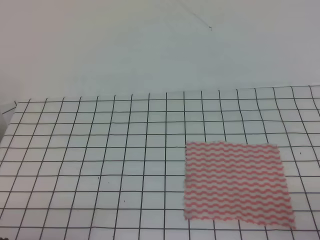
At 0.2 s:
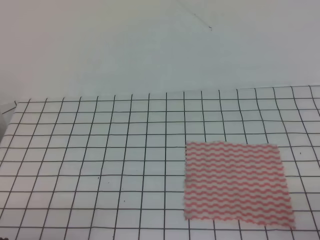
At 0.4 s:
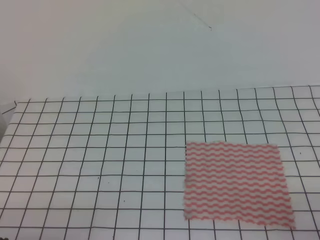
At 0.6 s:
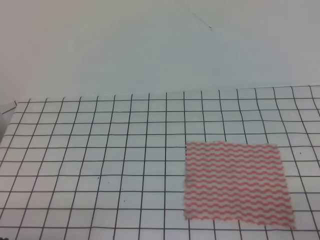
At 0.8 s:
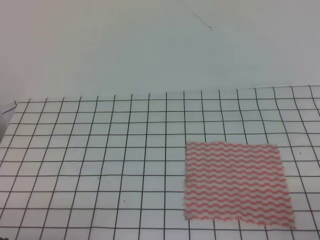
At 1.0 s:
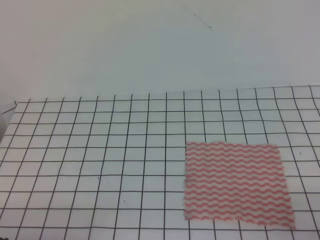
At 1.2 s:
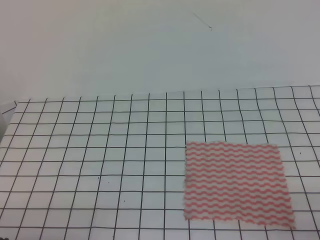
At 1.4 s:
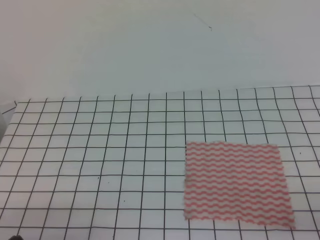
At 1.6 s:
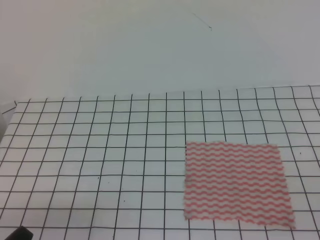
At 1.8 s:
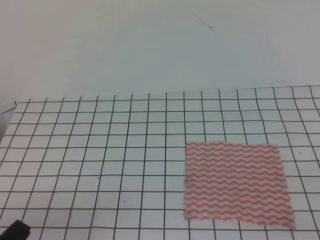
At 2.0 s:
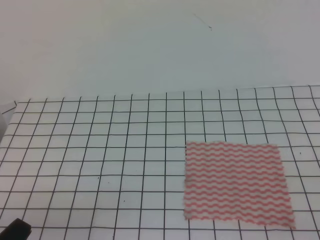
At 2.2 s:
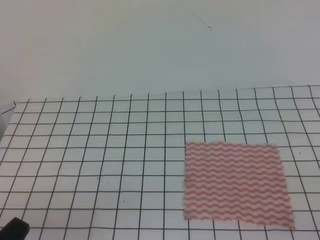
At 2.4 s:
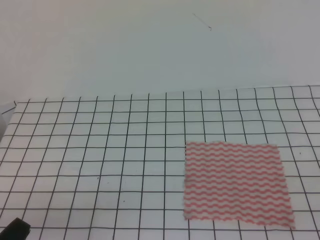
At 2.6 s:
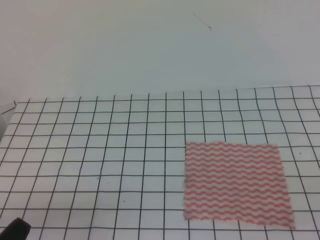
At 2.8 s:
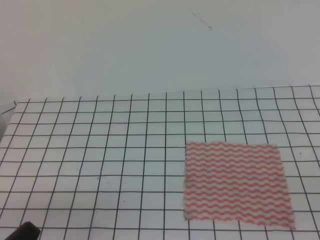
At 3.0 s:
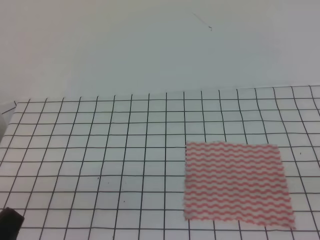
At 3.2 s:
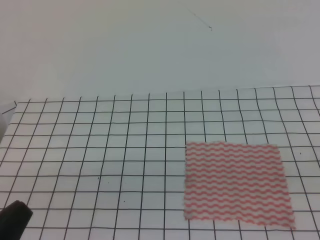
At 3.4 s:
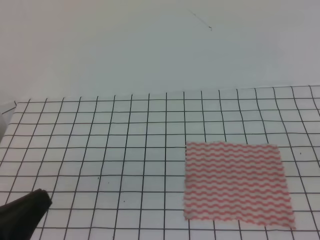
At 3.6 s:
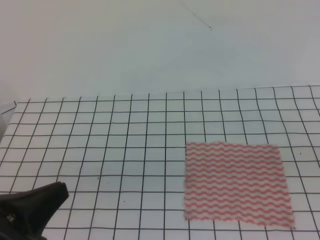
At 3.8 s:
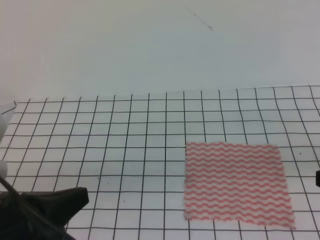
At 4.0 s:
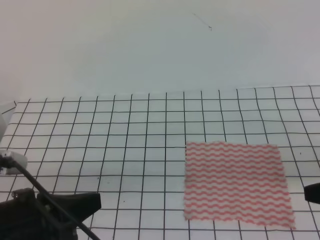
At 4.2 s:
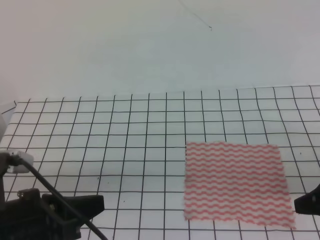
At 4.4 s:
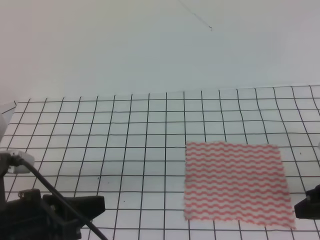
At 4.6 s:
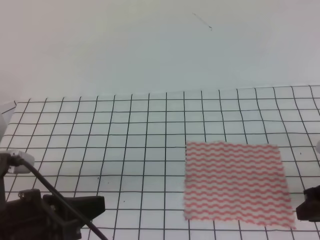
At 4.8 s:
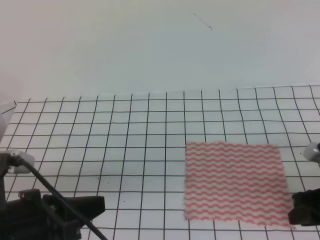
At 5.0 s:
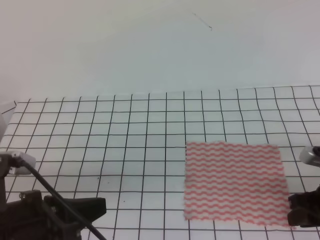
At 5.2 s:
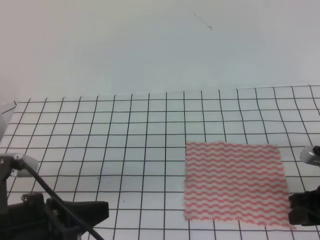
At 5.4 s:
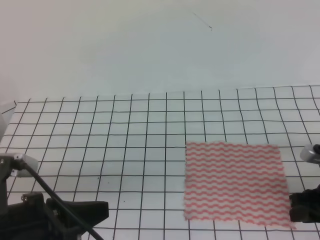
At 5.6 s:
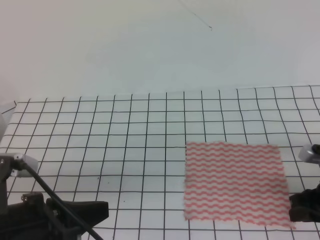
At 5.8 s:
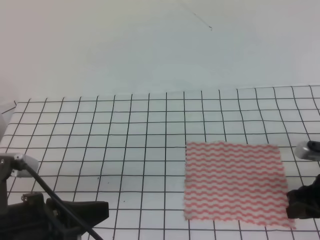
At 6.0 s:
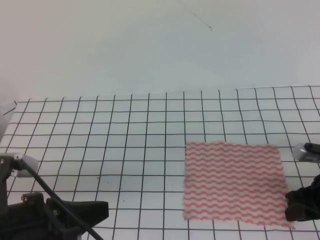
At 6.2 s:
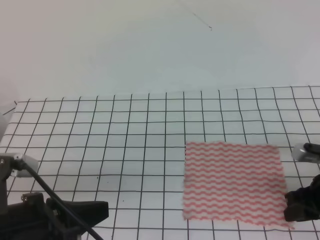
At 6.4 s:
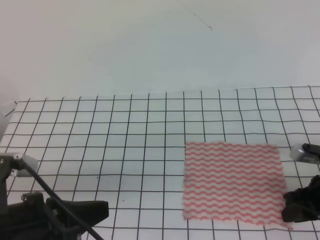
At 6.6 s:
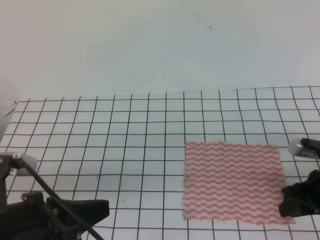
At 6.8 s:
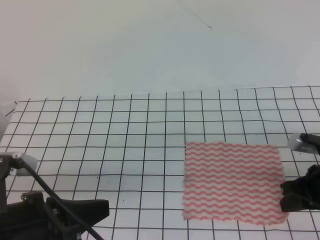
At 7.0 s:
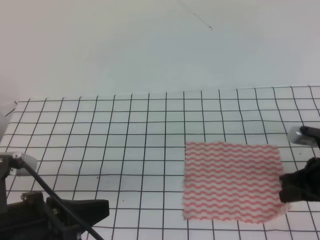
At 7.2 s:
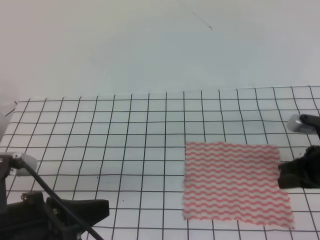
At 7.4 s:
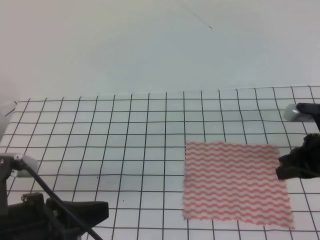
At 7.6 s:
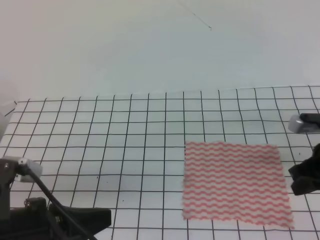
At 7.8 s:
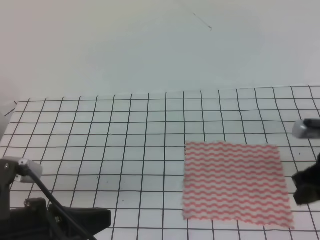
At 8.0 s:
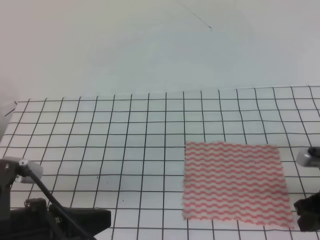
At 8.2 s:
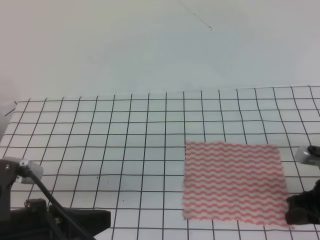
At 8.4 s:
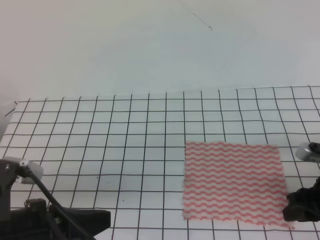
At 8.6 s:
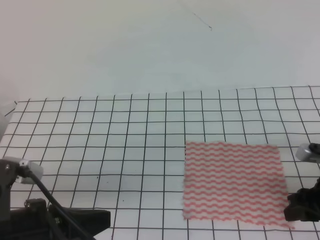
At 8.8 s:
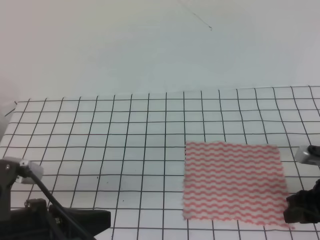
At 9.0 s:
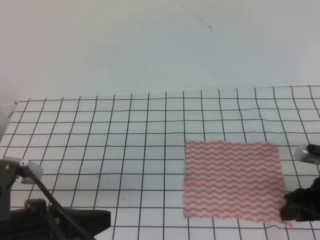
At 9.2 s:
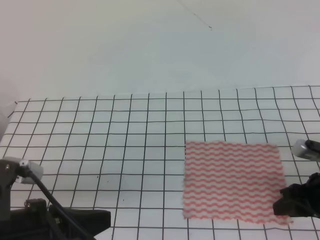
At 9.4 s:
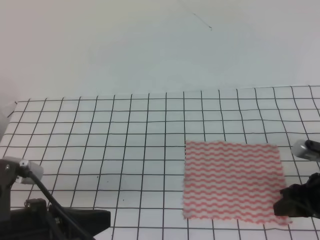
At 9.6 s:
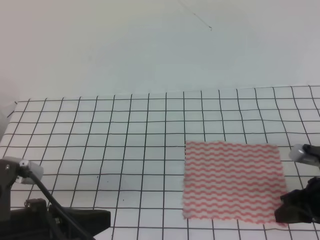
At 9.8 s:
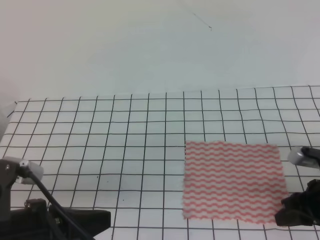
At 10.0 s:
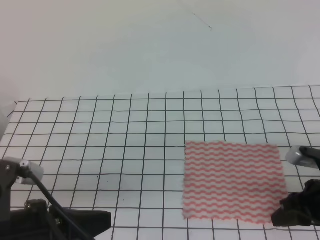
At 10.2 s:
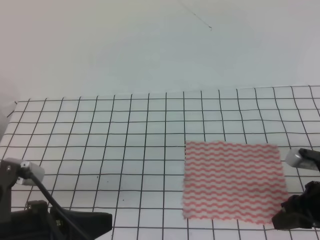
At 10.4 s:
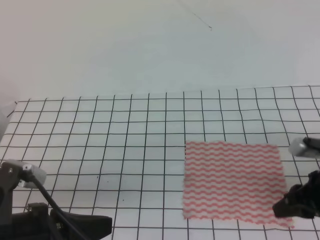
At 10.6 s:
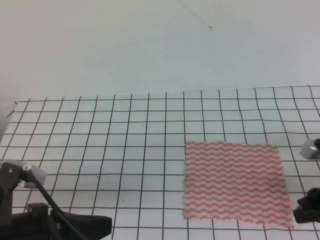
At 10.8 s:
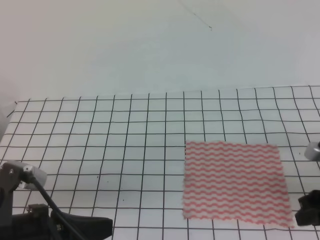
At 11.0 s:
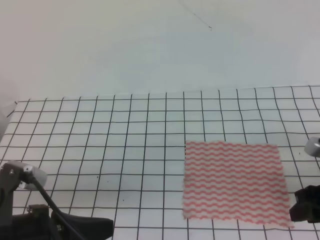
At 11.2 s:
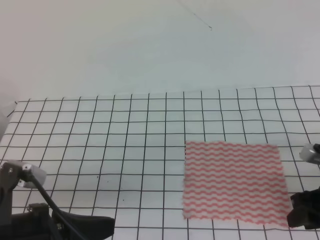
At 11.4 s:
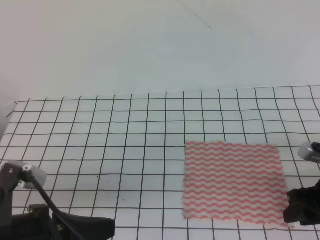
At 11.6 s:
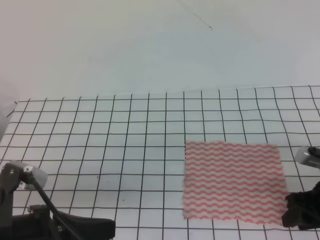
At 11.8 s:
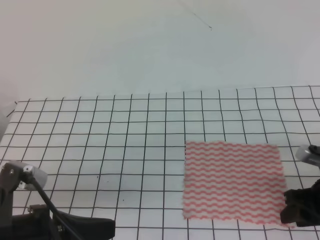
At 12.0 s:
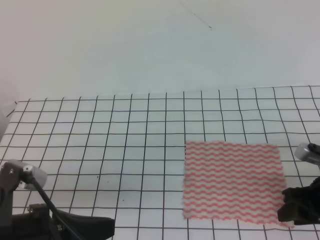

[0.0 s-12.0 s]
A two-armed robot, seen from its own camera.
1.6 to 3.0 s: The left gripper shifts roughly 5 cm upward.
3.0 to 4.4 s: The right gripper heads forward and downward, covering approximately 20 cm, and opens up, while the left gripper is displaced forward by roughly 10 cm.
4.4 to 6.0 s: The right gripper travels downward by roughly 5 cm.
6.0 to 7.6 s: The right gripper ends up roughly 5 cm from where it was, and closes.
7.6 to 9.0 s: The right gripper ends up some 5 cm from where it was, and opens up.
9.0 to 10.4 s: The grippers make only small movements.
10.4 to 12.0 s: The right gripper opens.

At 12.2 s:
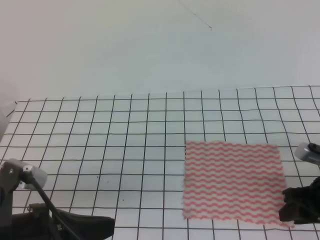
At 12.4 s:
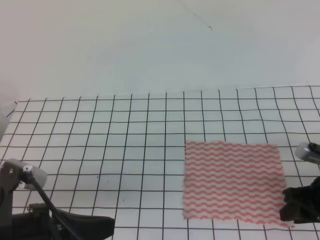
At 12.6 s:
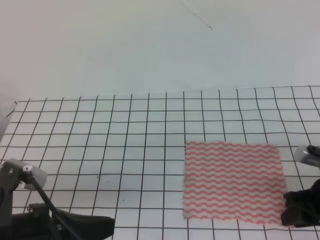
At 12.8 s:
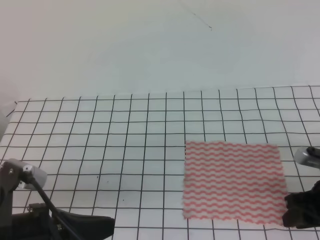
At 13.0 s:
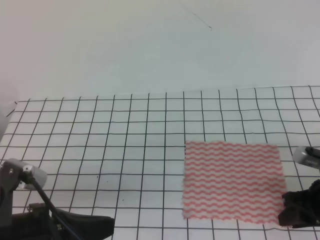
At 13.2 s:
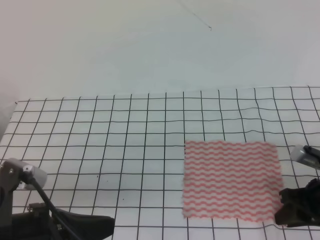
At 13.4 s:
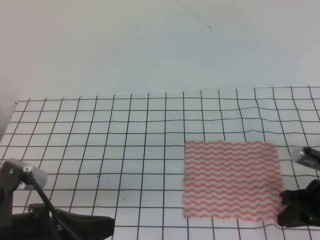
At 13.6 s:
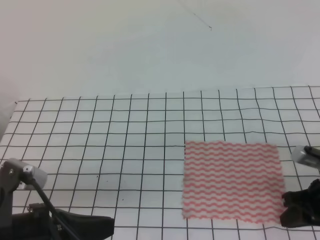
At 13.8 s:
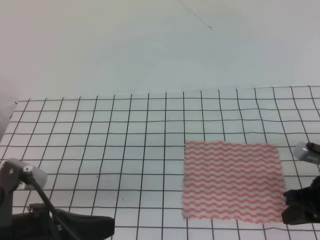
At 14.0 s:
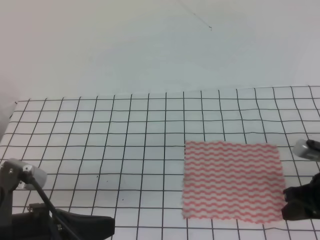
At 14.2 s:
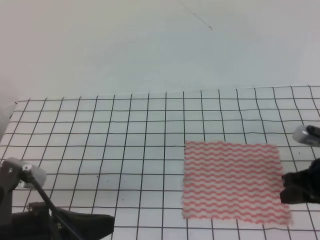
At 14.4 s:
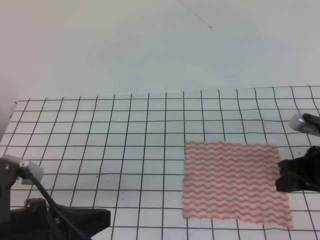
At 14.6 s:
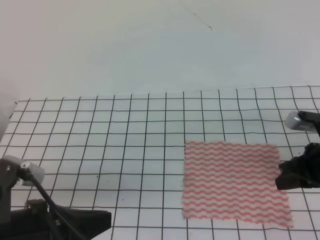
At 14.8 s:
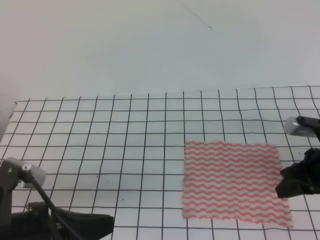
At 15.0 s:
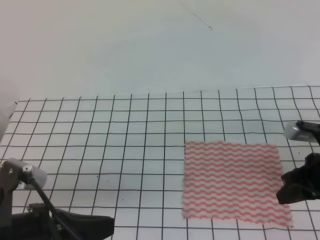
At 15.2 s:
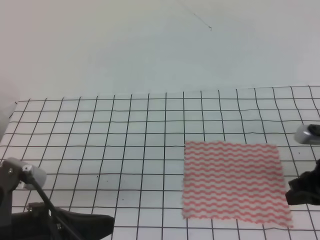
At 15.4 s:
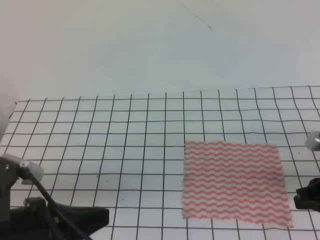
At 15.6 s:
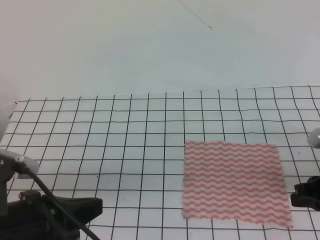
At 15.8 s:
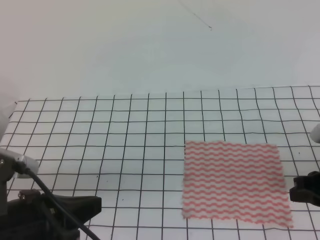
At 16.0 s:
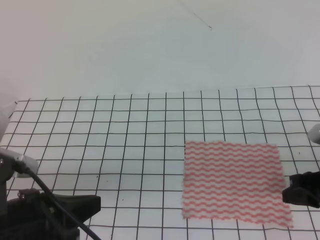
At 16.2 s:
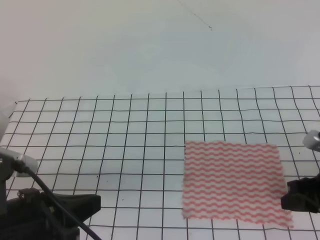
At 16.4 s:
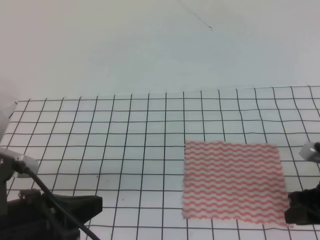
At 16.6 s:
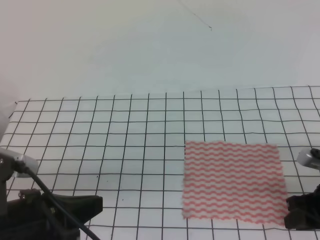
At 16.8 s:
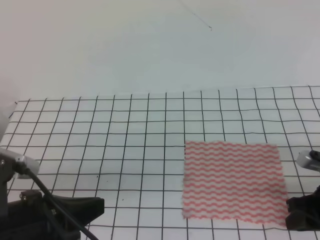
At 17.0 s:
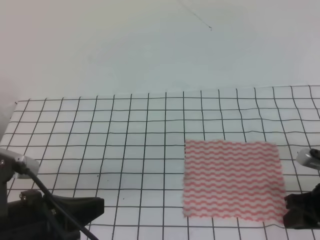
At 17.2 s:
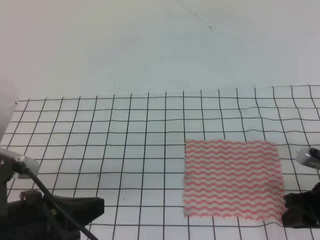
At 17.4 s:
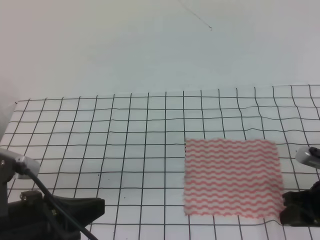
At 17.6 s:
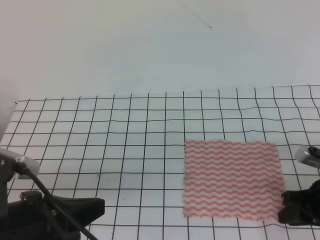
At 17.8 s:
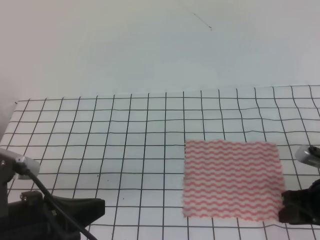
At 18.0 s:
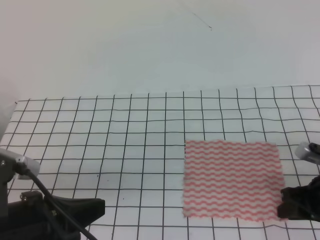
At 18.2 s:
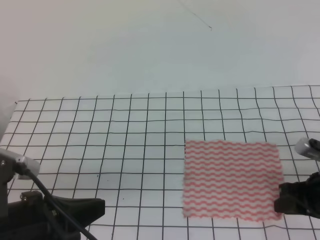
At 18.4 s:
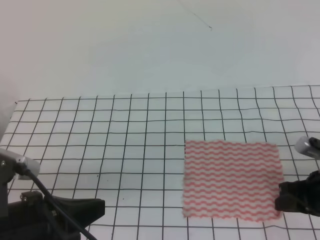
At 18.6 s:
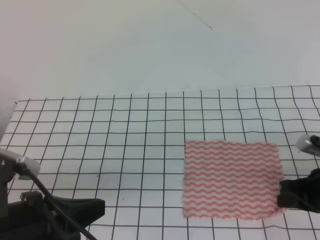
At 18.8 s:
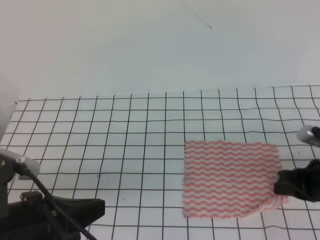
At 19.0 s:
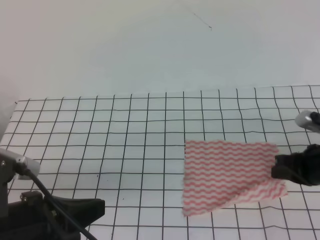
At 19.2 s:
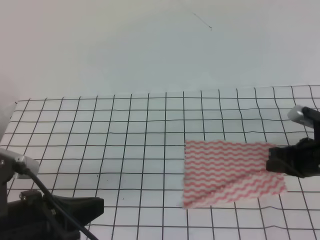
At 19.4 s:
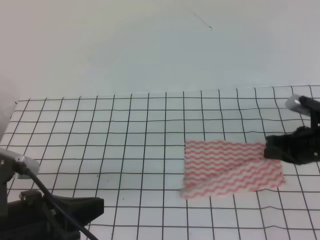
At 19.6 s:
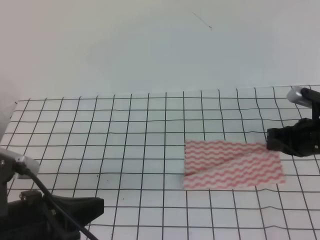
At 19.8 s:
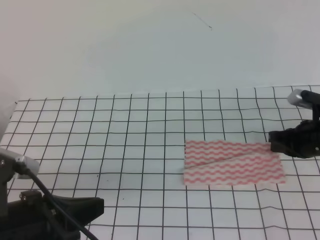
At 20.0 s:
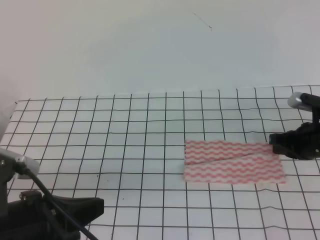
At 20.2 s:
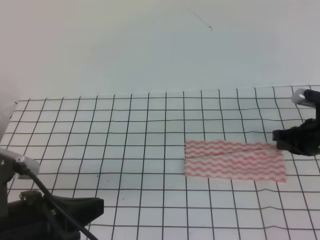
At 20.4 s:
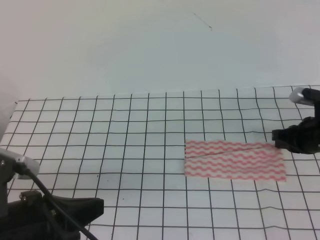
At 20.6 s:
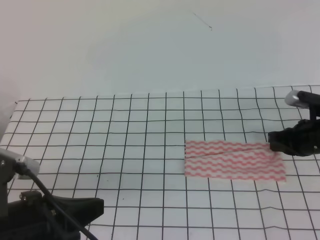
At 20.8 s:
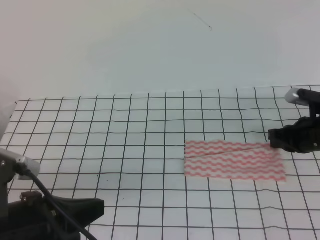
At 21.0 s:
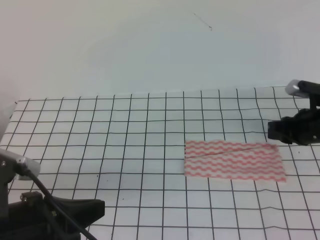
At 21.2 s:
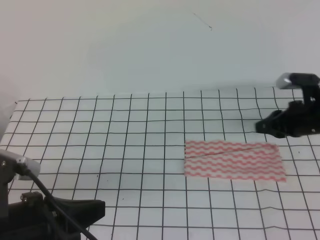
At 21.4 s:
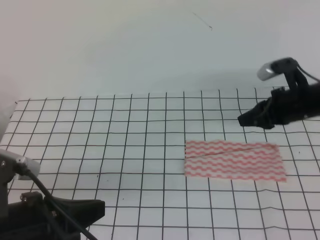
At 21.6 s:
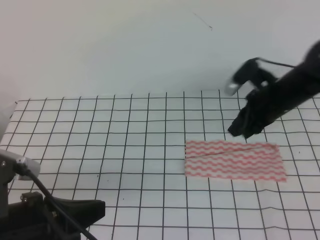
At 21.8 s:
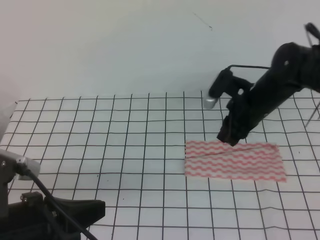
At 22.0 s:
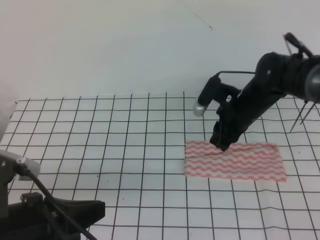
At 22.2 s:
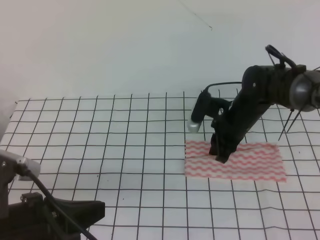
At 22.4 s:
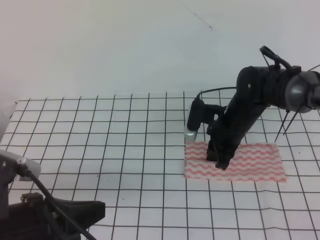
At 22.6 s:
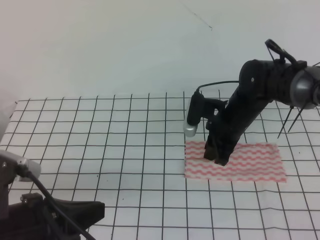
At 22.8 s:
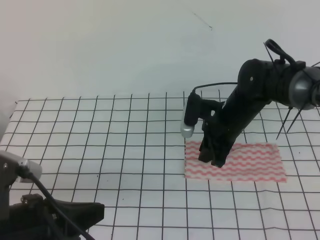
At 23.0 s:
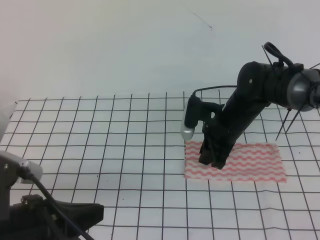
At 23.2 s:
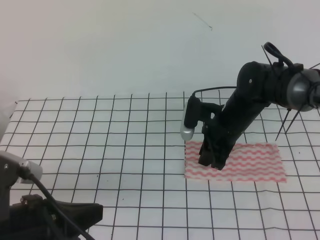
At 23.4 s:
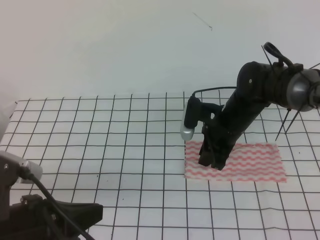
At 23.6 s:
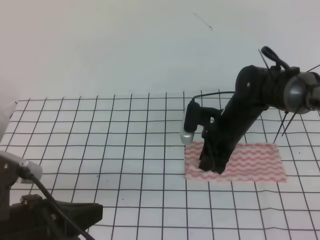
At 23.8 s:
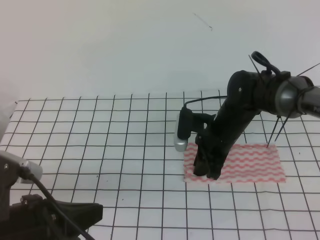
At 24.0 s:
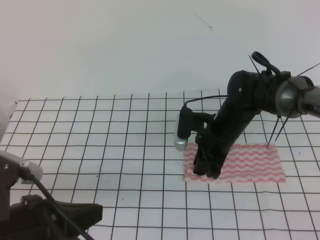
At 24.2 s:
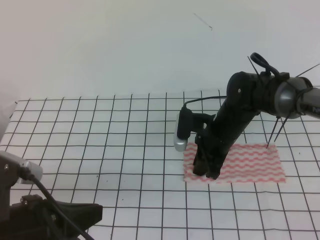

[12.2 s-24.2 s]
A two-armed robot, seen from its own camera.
Step, 12.2 to 21.4 s: Fold the towel upwards with the right gripper.
Step, 21.6 to 23.8 s: Fold the towel from right to left with the right gripper.
12.2 to 13.8 s: The right gripper closes.
13.8 to 18.2 s: The grippers move only a little.
18.2 to 19.8 s: The right gripper moves forward, some 10 cm, and closes its fingers.
19.8 to 21.2 s: The right gripper opens up.
21.2 to 22.6 s: The right gripper moves to the left, some 15 cm.
22.6 to 24.2 s: The grippers move only a little.
